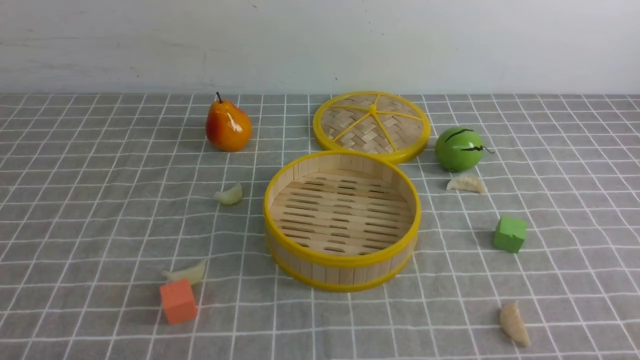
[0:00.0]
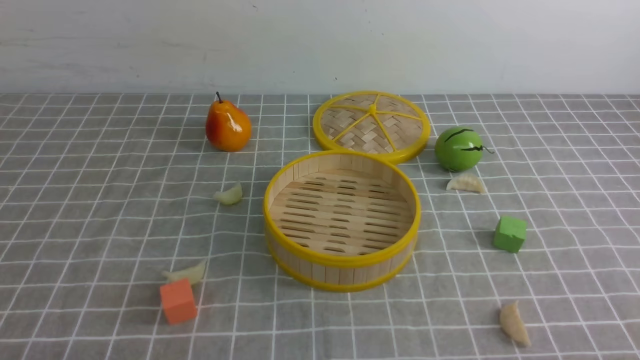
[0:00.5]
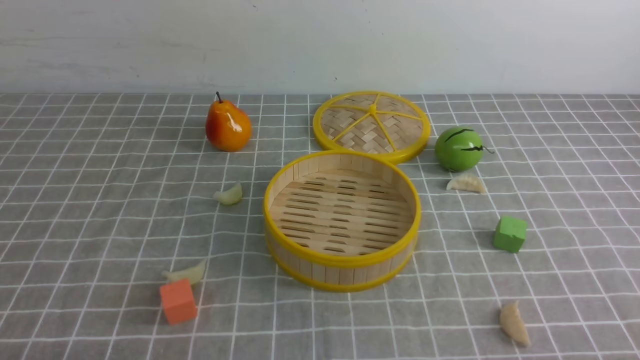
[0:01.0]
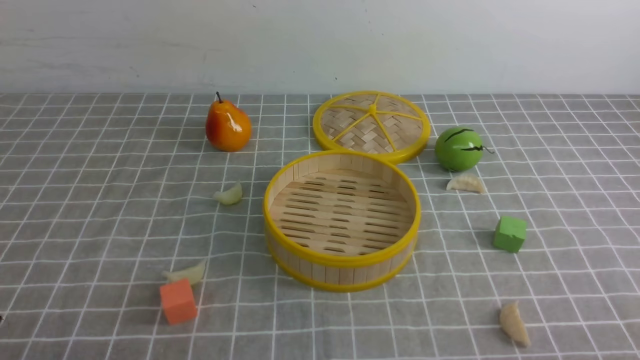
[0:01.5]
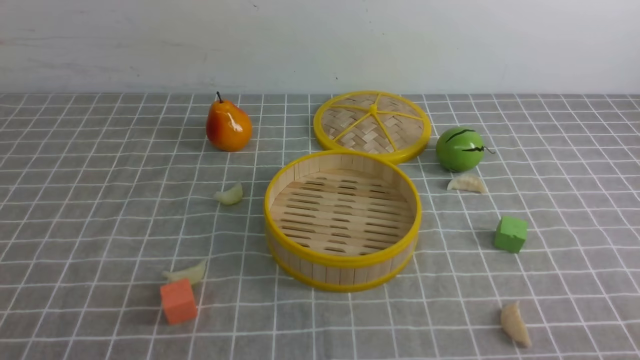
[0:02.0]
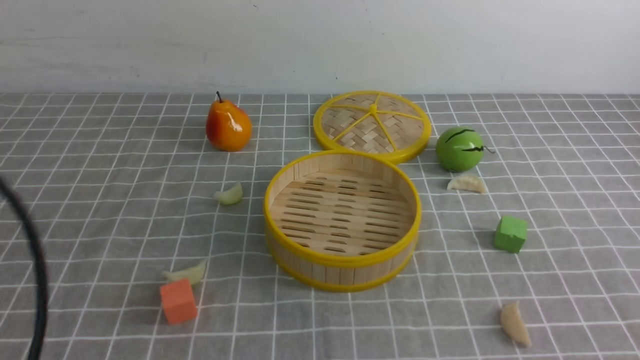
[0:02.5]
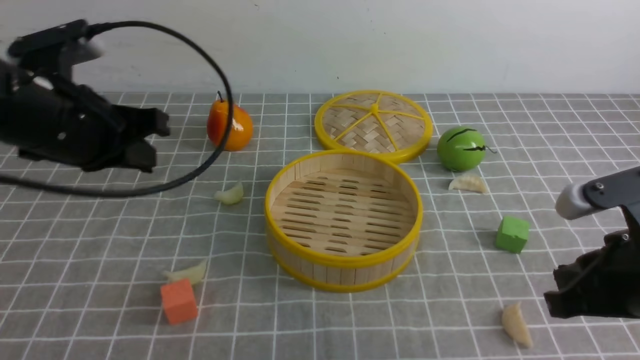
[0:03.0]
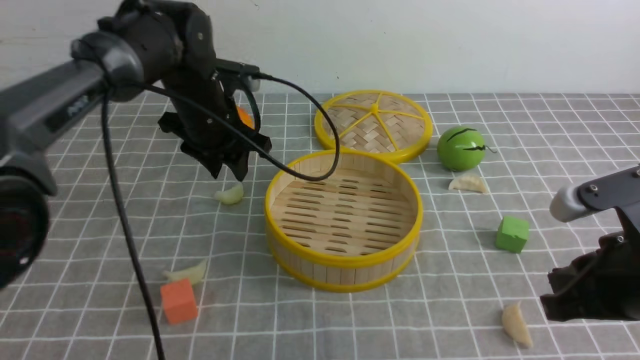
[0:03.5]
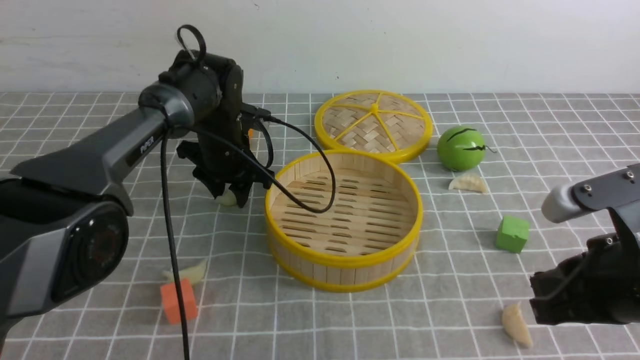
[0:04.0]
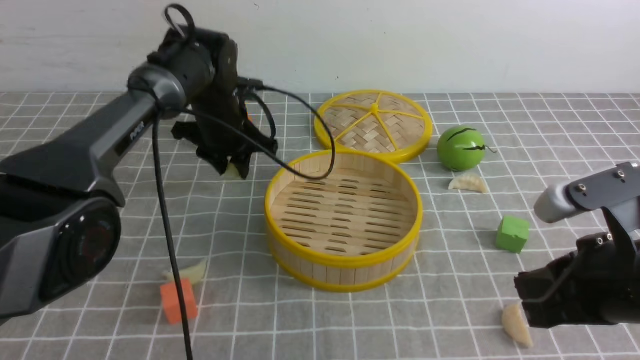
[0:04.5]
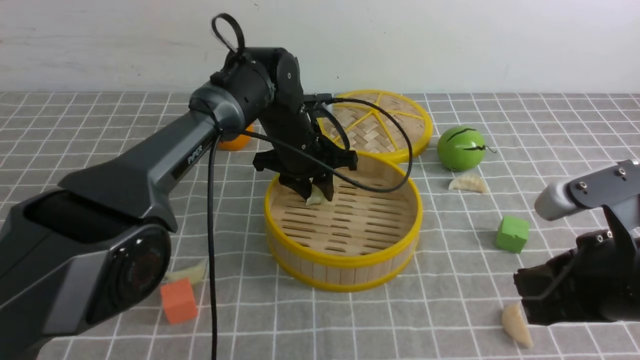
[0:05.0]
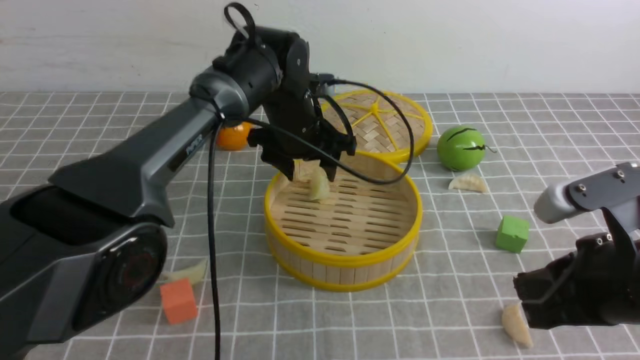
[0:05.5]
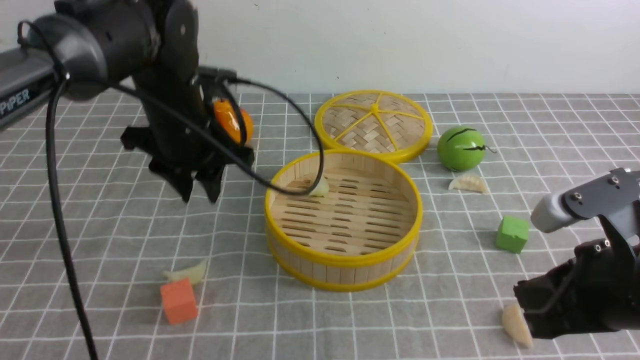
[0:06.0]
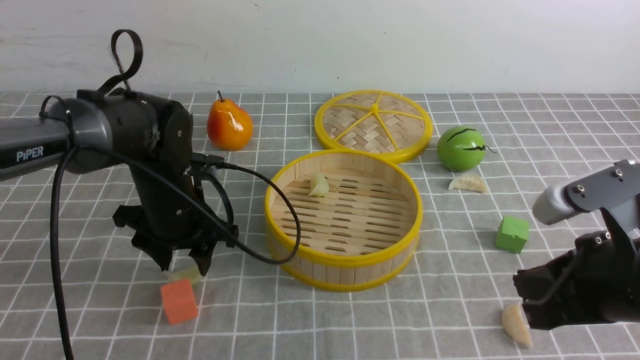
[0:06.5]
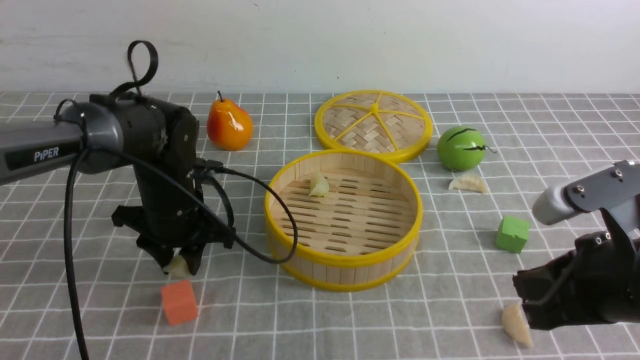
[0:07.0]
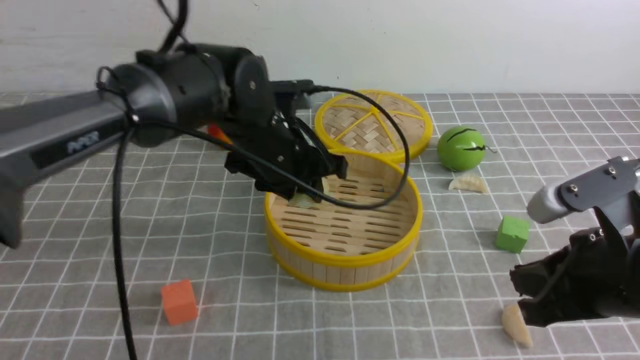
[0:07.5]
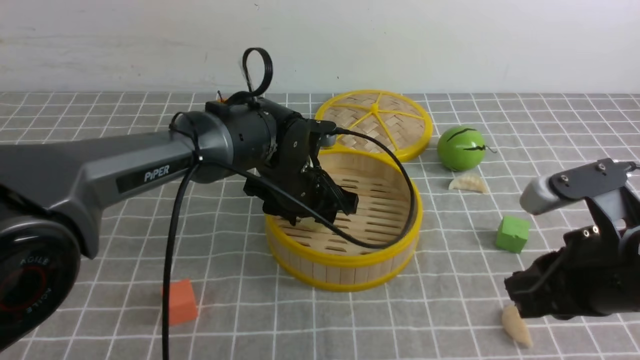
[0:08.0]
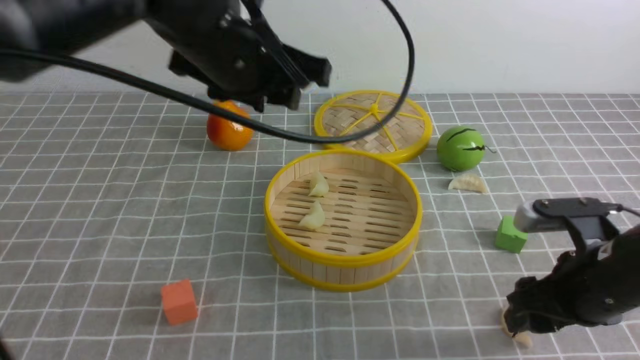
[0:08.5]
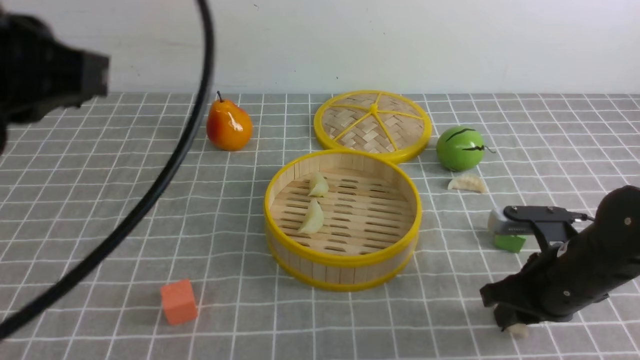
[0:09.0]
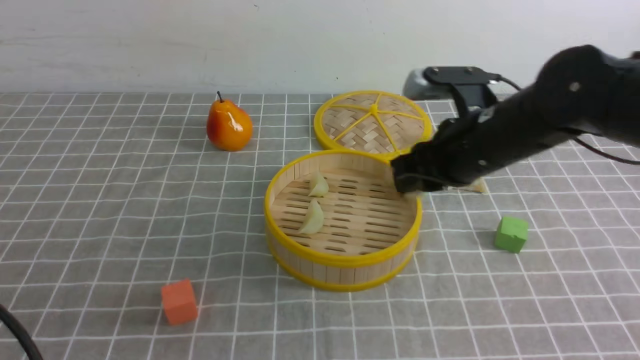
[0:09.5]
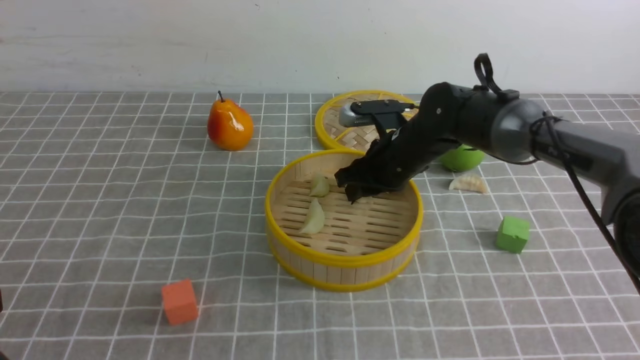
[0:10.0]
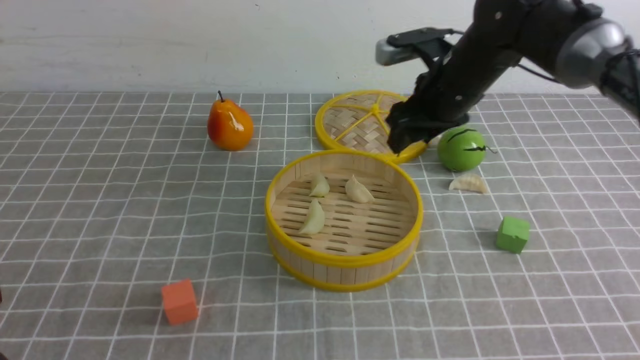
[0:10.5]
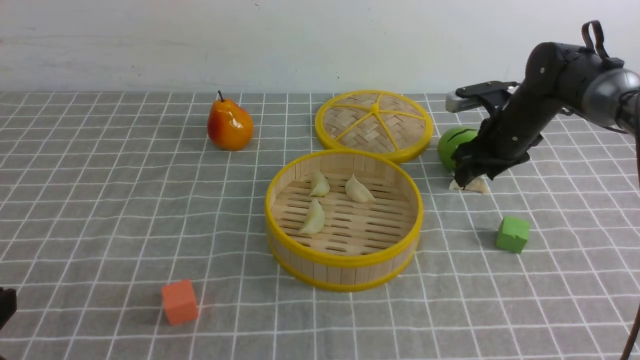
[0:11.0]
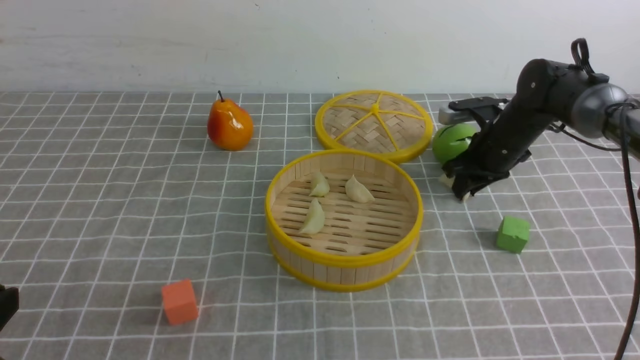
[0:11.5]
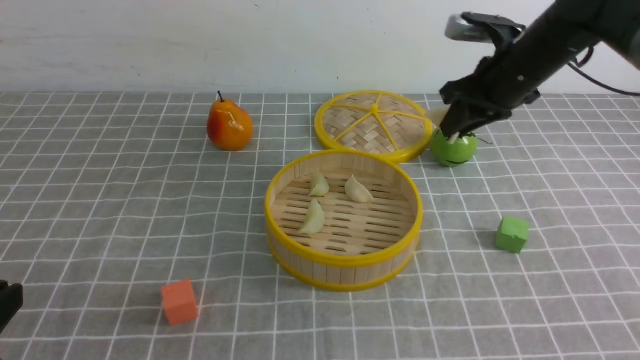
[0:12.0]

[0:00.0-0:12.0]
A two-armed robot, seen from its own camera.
Task of the whole recording: put the dumplings into the steamer on the table with the grey tablecloth.
Step, 0:00.0 to 0:04.0: use the left arm to grab a dumpling.
Step, 0:06.0 to 0:07.0: use the left arm to grab a dumpling.
Step, 0:07.5 to 0:08.0: use the left arm to put the dumpling into the steamer.
Step, 0:08.5 to 0:09.0: use the right arm to grab a dumpling.
Step, 0:09.5 to 0:10.0: use the right arm to put the dumpling into the steamer.
Step, 0:10.5 to 0:11.5: use the right arm to grab a dumpling.
0:02.0 to 0:04.0: The left gripper goes roughly 50 cm forward, and opens up; the right gripper moves forward and to the left, some 15 cm.
0:04.0 to 0:06.0: The left gripper is displaced backward and upward by about 15 cm, and goes to the right and returns, roughly 10 cm each way.
0:06.0 to 0:08.0: The left gripper moves to the right and downward, approximately 10 cm.
0:08.0 to 0:10.0: The left gripper is displaced backward and to the left by roughly 40 cm, and closes up. The right gripper is displaced forward and to the left by about 30 cm.
0:10.0 to 0:12.0: The right gripper is displaced to the right and upward by about 10 cm, and opens, then closes once more.

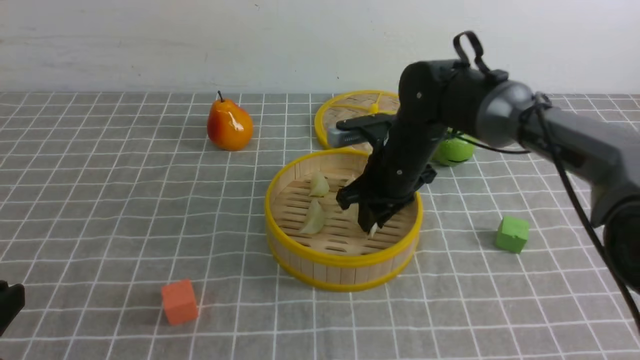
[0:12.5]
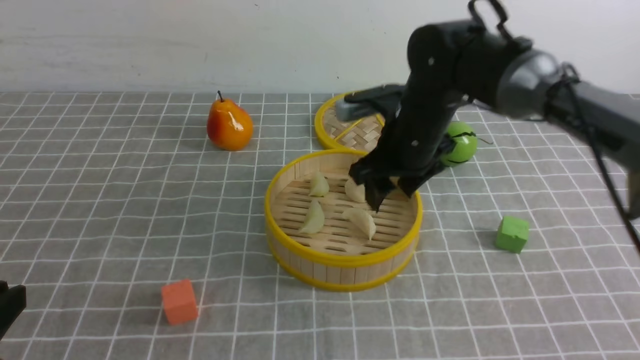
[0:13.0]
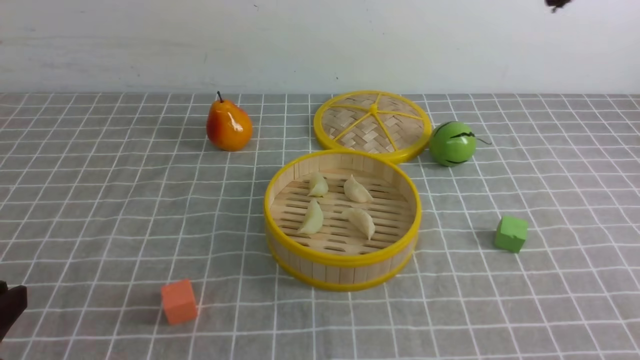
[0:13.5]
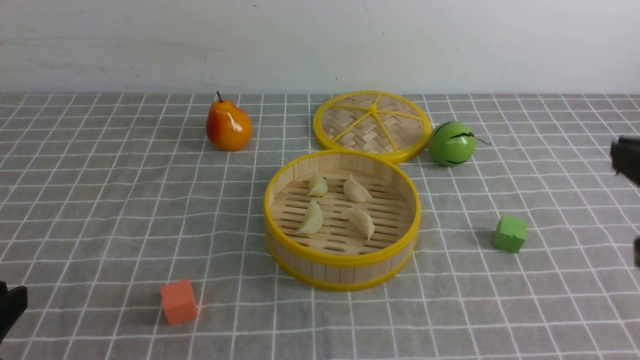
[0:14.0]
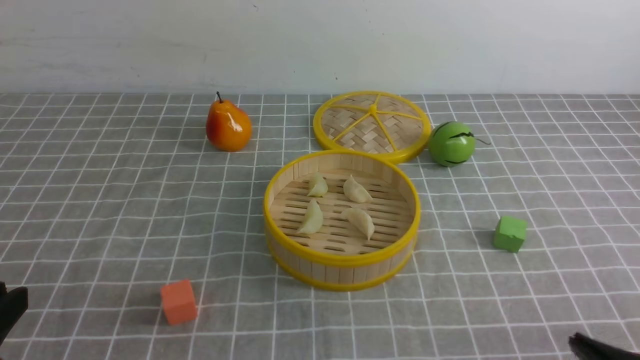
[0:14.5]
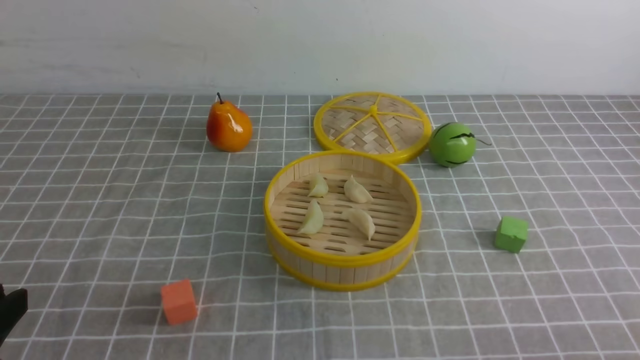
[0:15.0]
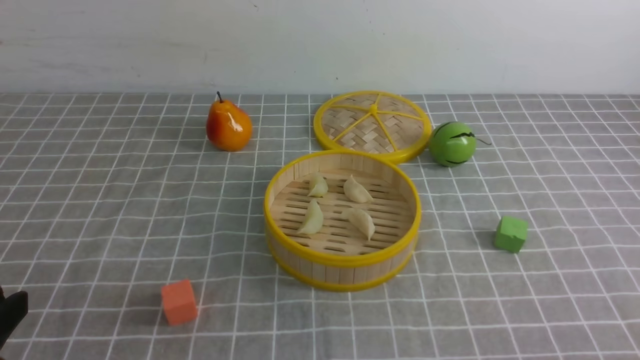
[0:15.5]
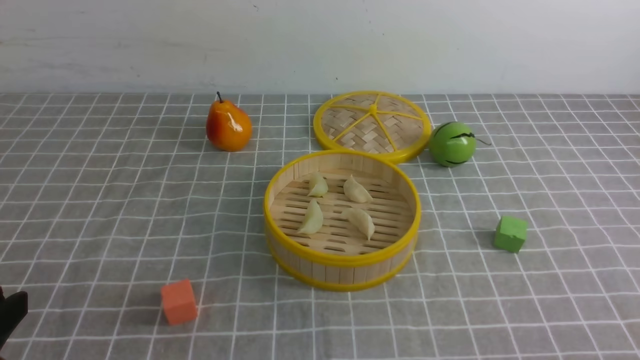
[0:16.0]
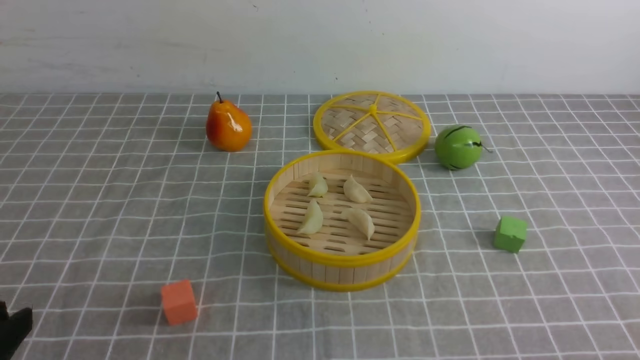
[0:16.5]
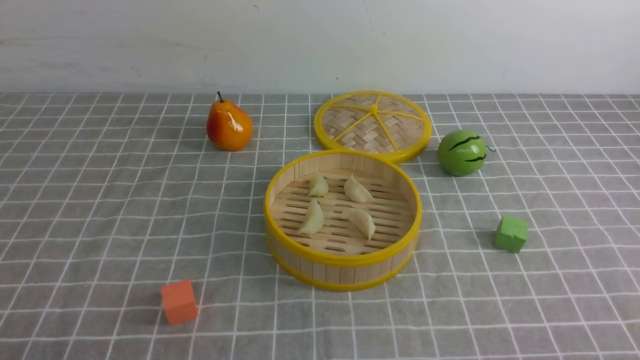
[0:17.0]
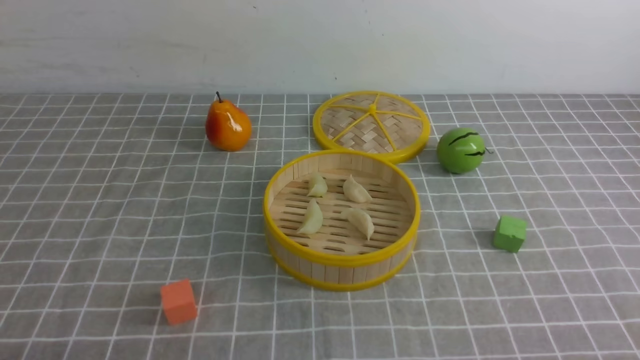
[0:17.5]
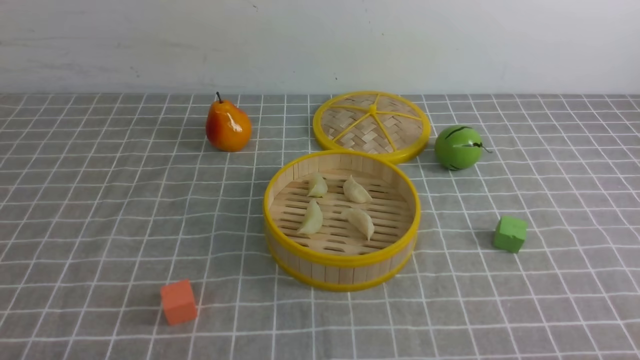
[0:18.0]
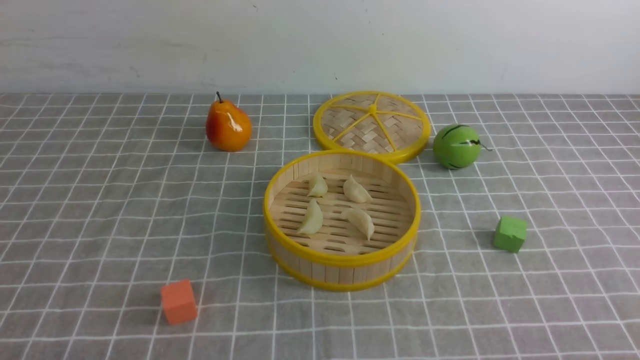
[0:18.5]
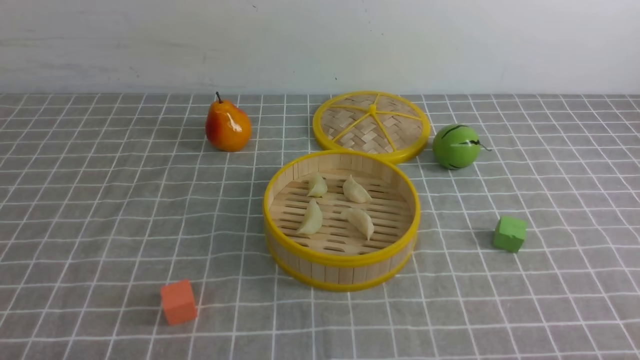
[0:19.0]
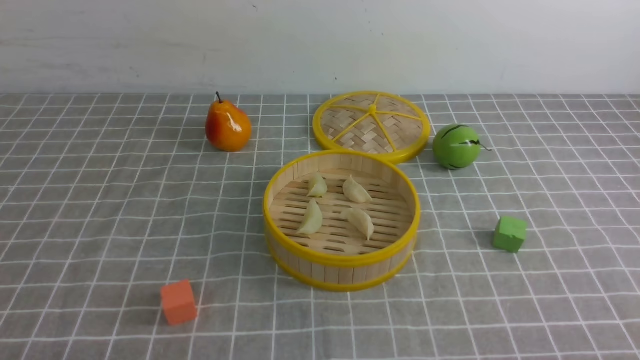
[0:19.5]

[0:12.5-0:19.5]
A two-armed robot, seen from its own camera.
Task of the whole recording: put the dumplings into the steamer on the table with the grey tablecloth.
0:12.5 to 0:14.5: The right gripper heads backward and to the right, covering approximately 40 cm, and closes up.
